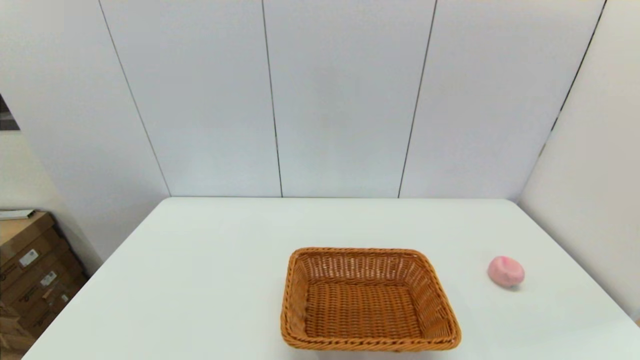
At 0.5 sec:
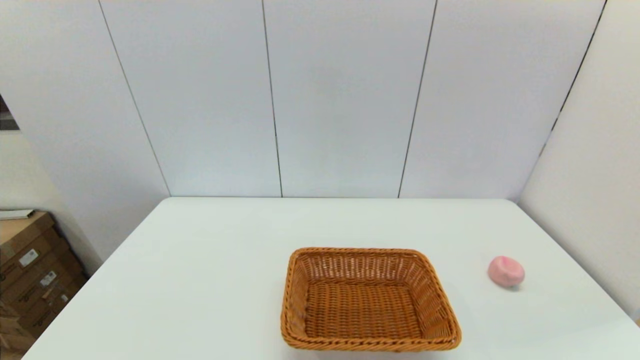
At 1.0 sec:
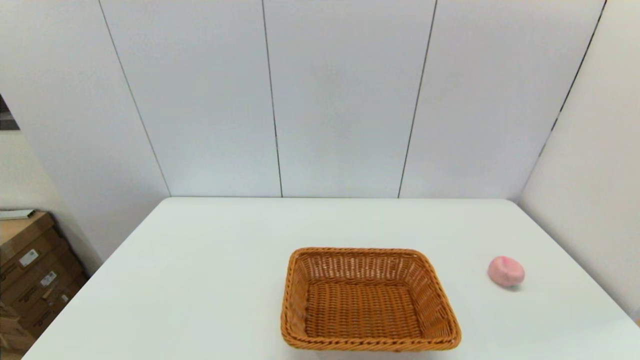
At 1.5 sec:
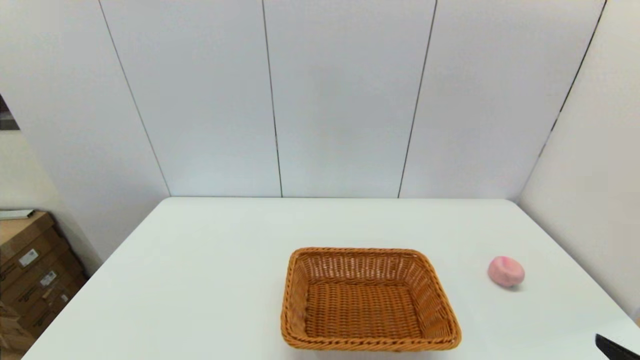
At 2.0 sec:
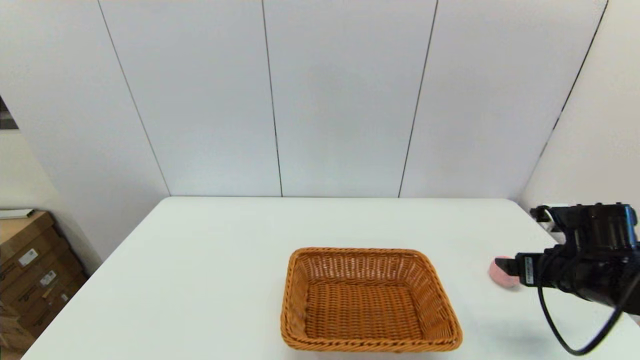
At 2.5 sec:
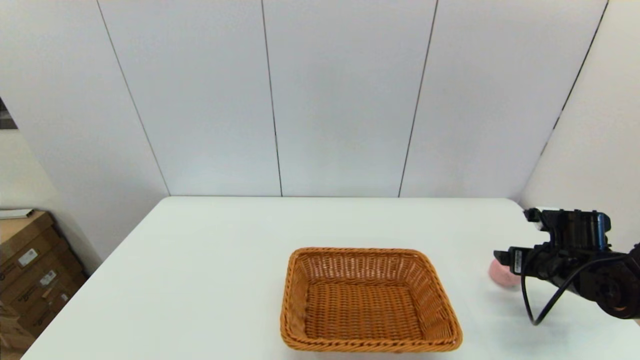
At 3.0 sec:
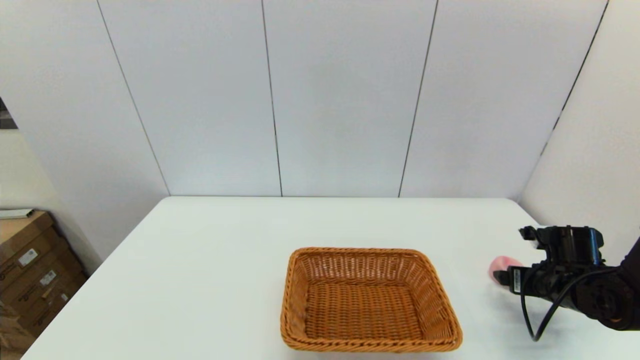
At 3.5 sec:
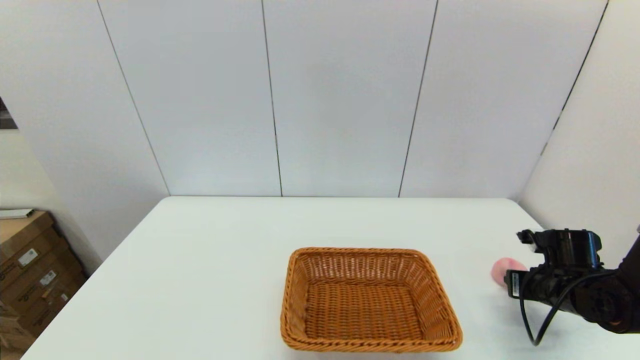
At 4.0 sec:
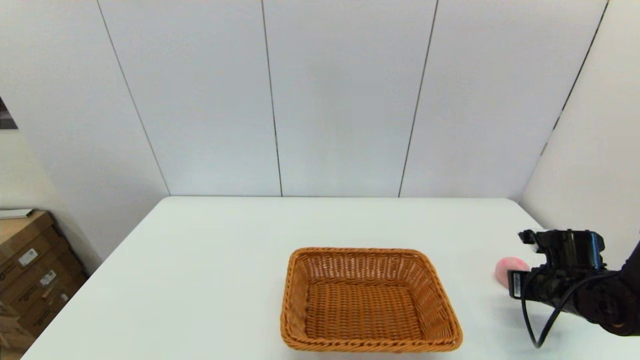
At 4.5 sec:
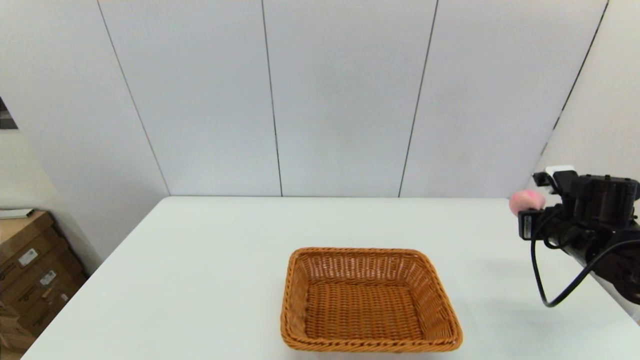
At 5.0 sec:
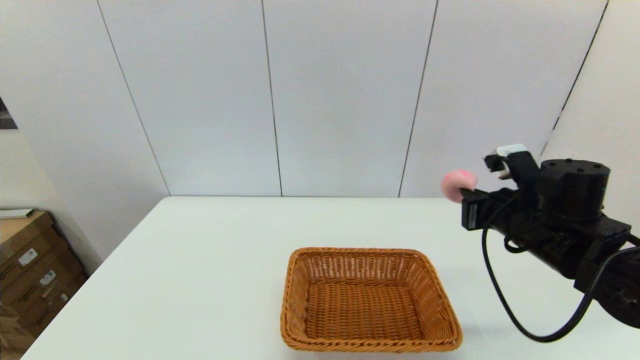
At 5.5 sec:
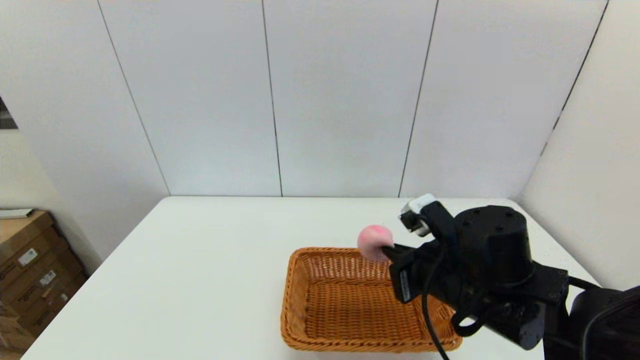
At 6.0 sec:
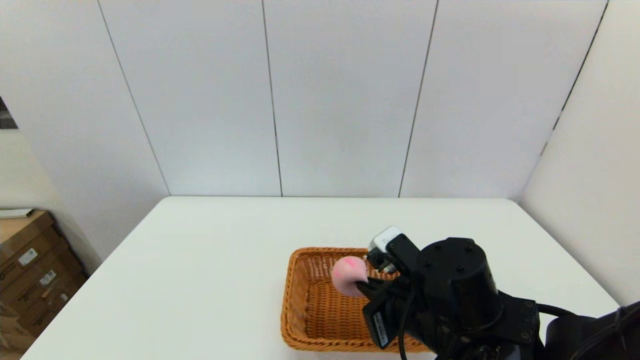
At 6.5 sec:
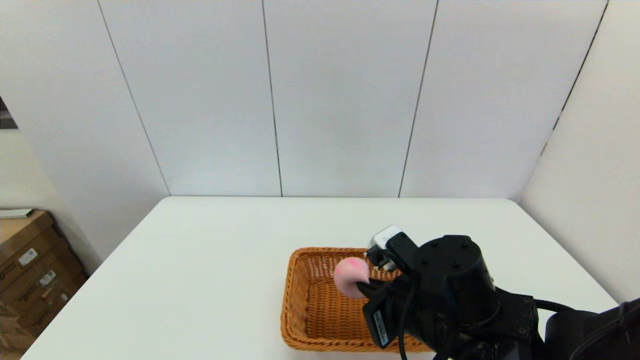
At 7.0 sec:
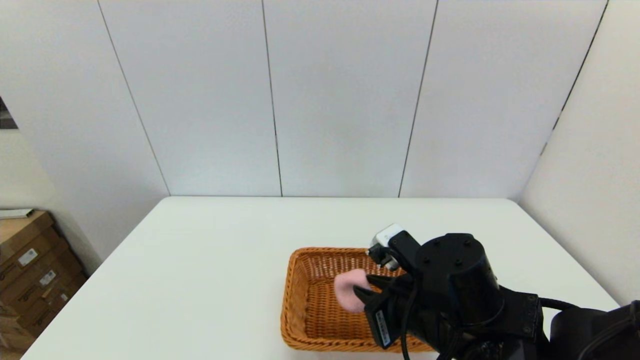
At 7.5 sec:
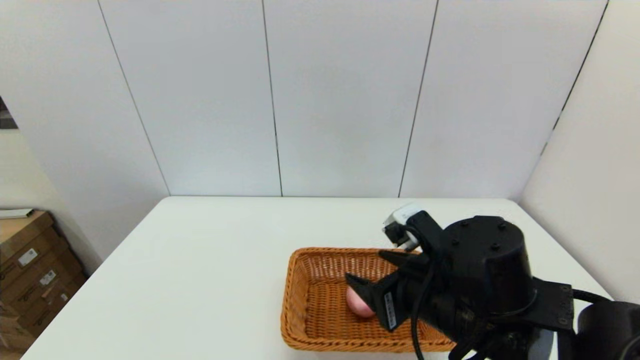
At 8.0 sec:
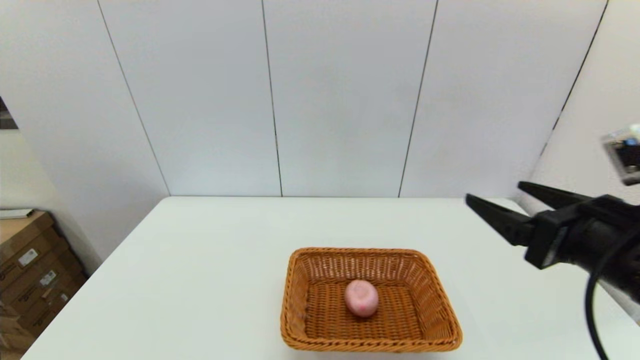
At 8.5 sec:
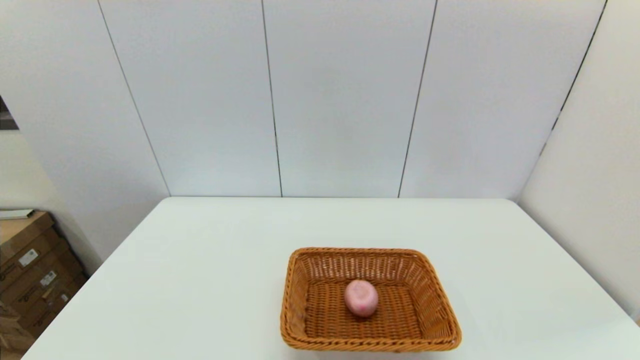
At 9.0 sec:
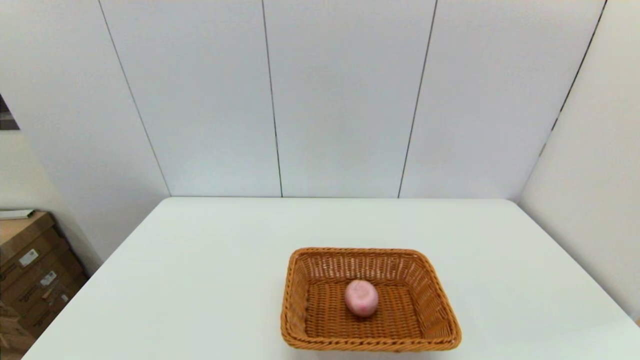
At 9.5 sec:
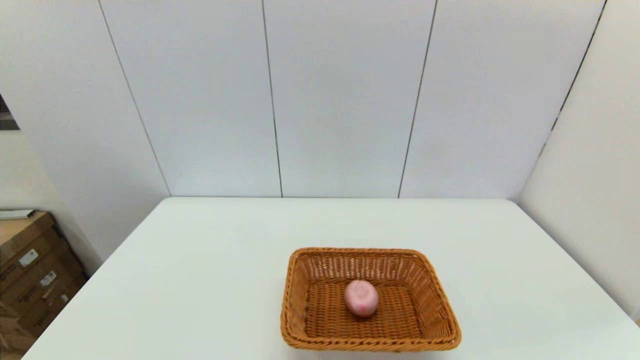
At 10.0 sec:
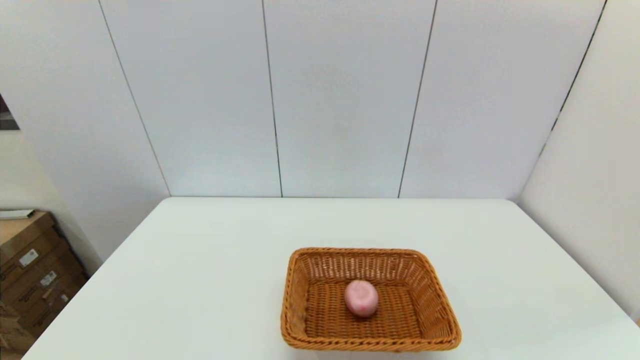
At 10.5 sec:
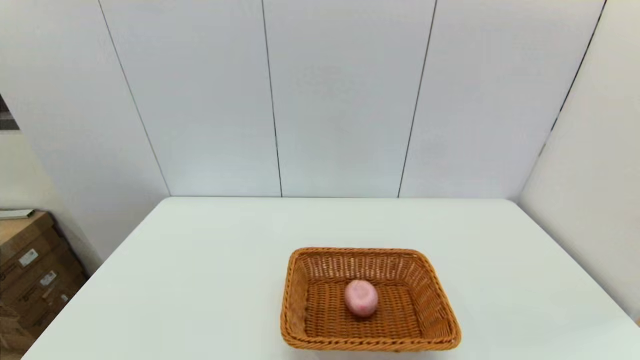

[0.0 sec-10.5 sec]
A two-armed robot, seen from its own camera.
Step, 0.0 sec to 3.5 sec: Grasp the peach with the right gripper.
Step, 4.0 sec to 7.0 sec: Place the peach into the light basket with the right gripper.
0.0 sec to 2.0 sec: The right gripper is displaced forward by some 30 cm.
2.0 sec to 4.0 sec: The right gripper moves downward, approximately 5 cm, and closes its fingers.
4.0 sec to 6.5 sec: The right gripper shifts roughly 25 cm to the left.
6.5 sec to 8.5 sec: The right gripper goes about 25 cm to the right and backward, and opens its fingers.
